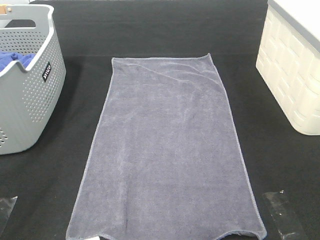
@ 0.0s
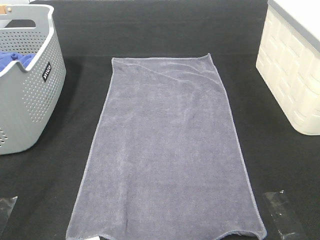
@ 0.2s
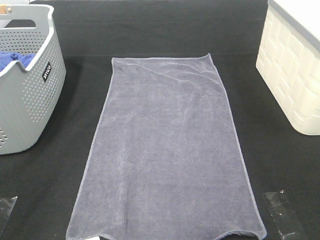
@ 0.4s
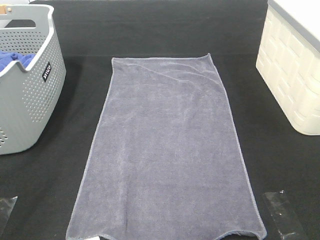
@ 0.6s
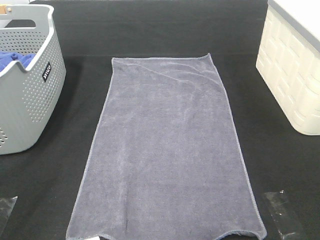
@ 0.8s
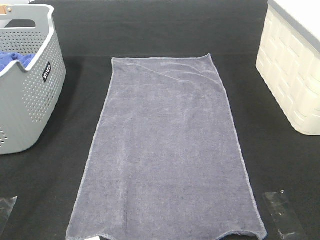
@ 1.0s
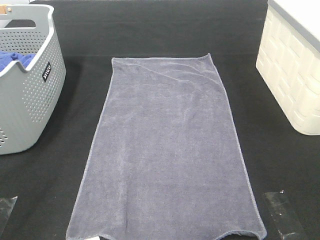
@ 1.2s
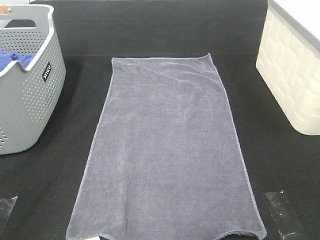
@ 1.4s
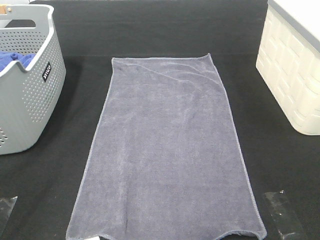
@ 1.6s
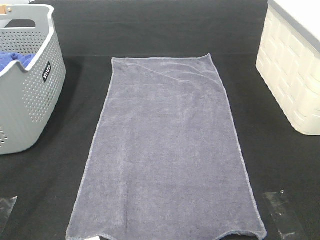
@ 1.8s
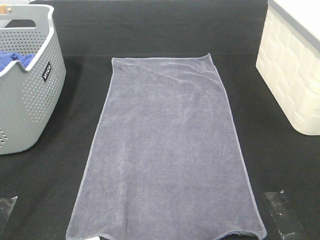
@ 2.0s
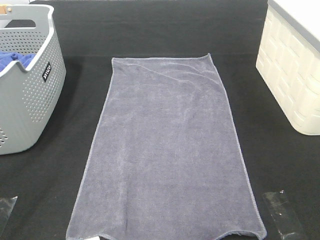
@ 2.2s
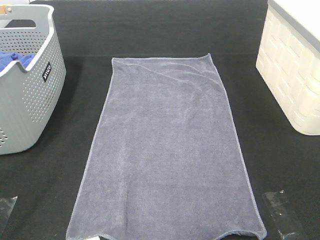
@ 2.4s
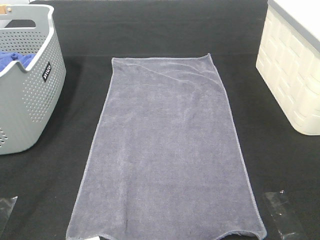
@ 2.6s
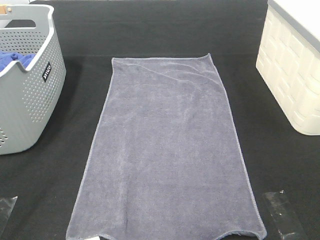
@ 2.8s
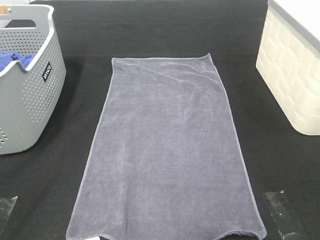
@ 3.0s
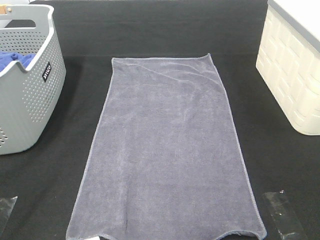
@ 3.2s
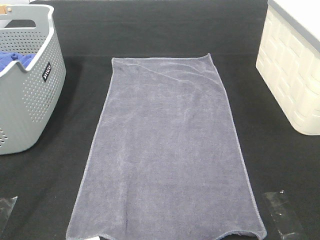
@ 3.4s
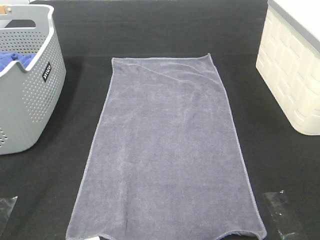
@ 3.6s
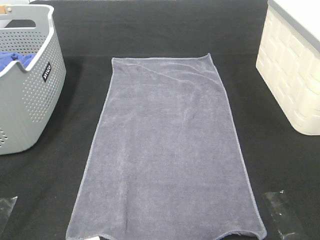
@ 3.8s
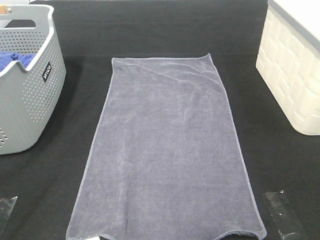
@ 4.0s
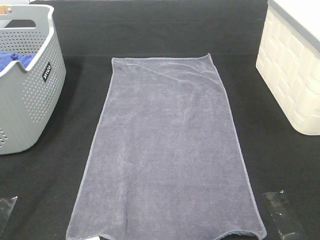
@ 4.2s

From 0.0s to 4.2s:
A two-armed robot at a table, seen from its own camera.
Task of the whole recording: Remove the towel and place it.
From 0.0s to 1.4s: Both grippers stay put.
From 2.8s to 4.2s: Both grippers stay about where they are.

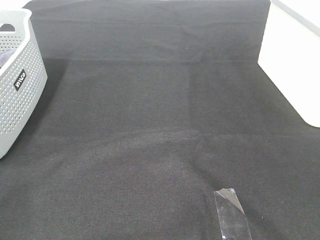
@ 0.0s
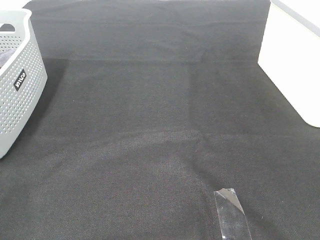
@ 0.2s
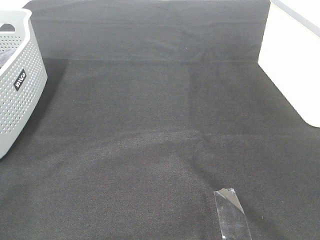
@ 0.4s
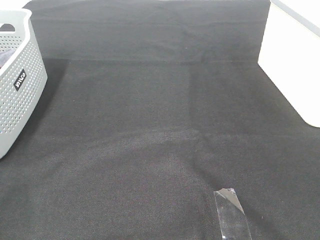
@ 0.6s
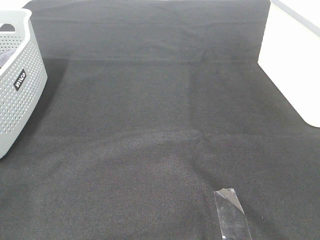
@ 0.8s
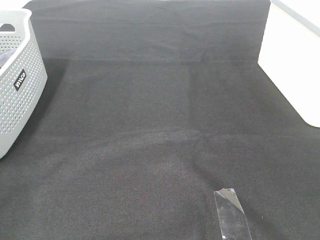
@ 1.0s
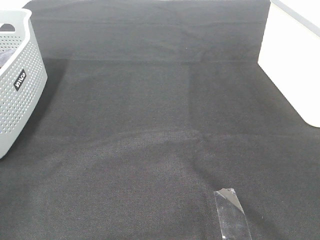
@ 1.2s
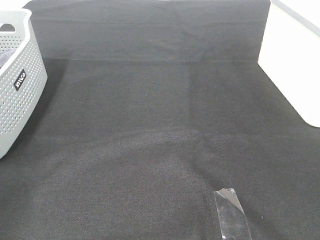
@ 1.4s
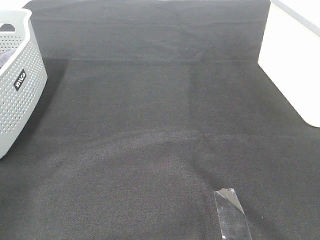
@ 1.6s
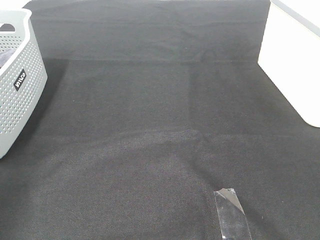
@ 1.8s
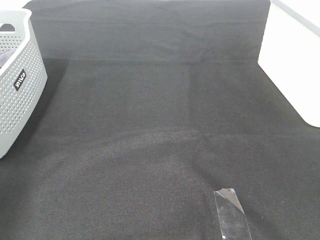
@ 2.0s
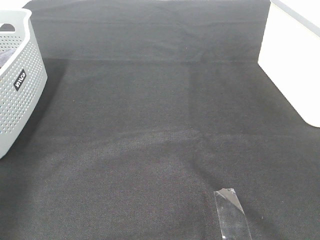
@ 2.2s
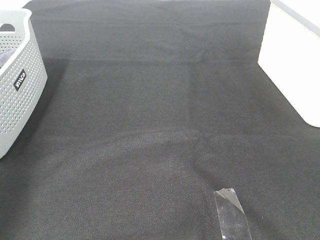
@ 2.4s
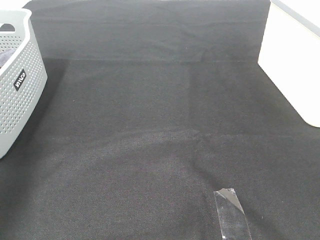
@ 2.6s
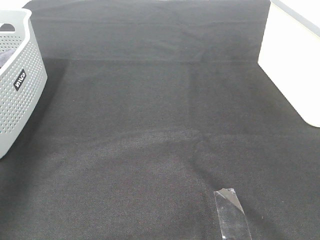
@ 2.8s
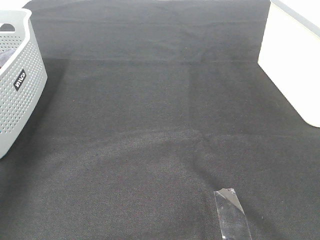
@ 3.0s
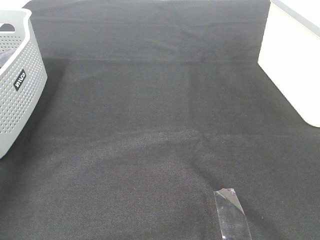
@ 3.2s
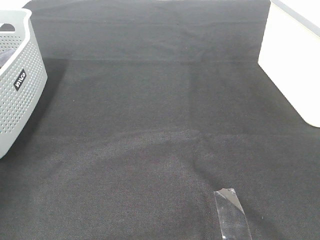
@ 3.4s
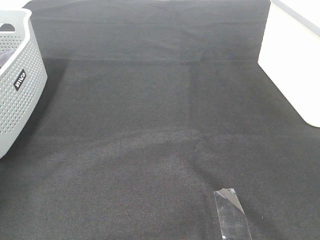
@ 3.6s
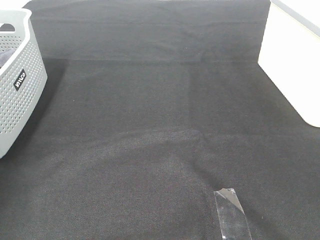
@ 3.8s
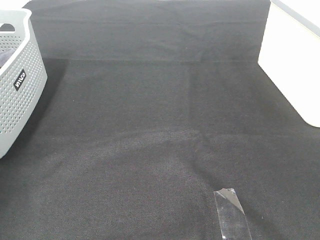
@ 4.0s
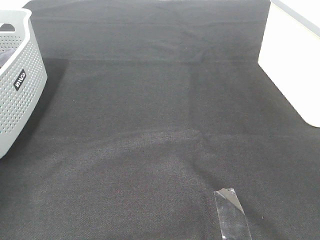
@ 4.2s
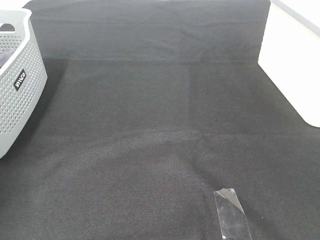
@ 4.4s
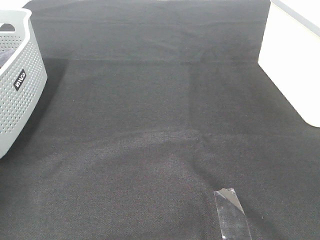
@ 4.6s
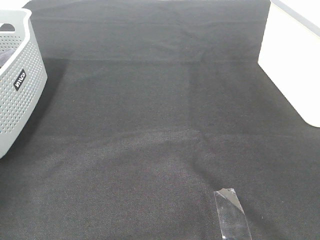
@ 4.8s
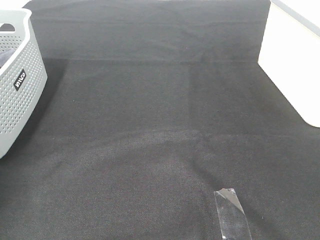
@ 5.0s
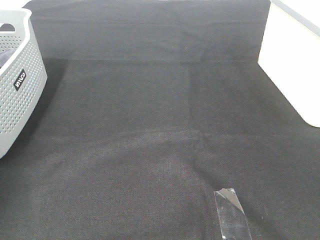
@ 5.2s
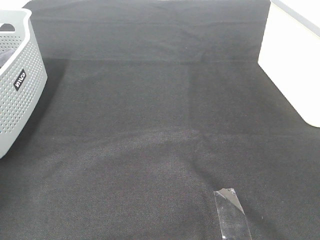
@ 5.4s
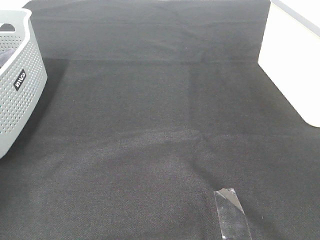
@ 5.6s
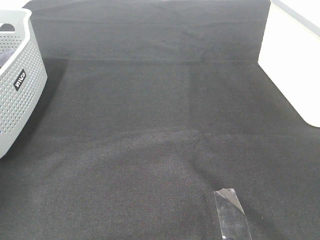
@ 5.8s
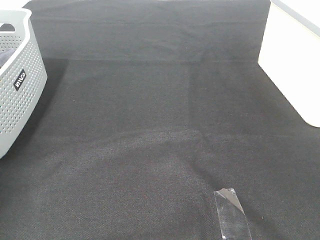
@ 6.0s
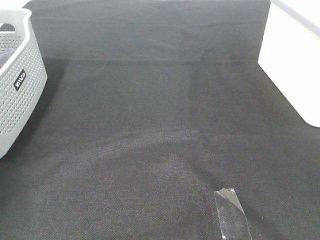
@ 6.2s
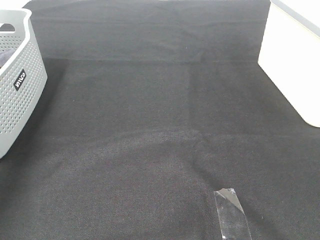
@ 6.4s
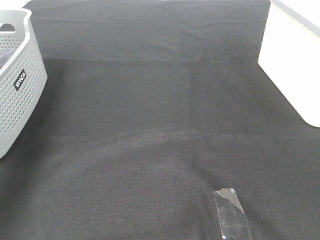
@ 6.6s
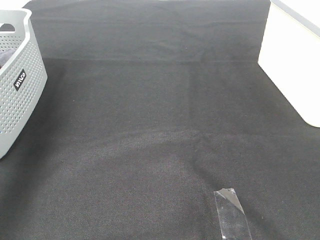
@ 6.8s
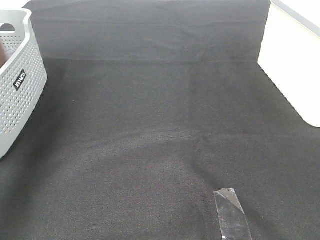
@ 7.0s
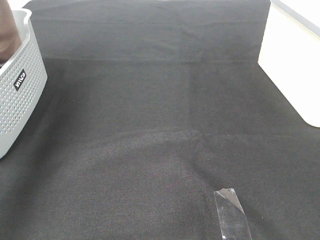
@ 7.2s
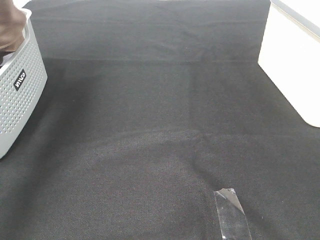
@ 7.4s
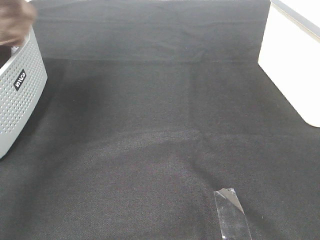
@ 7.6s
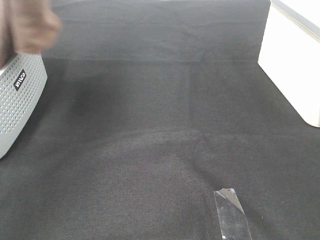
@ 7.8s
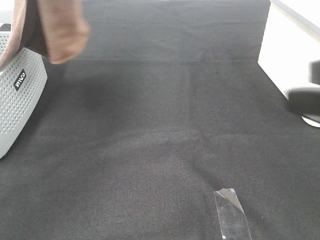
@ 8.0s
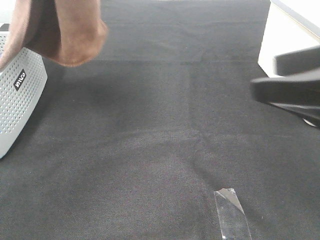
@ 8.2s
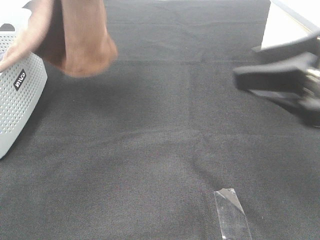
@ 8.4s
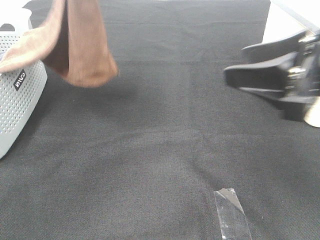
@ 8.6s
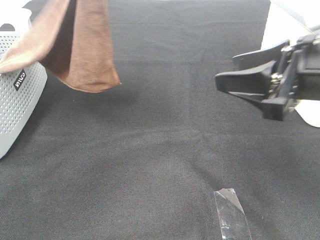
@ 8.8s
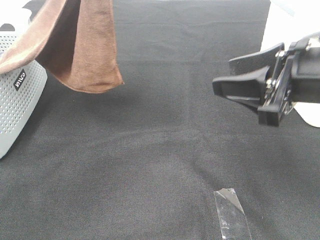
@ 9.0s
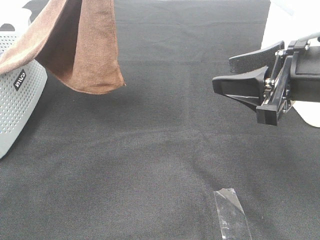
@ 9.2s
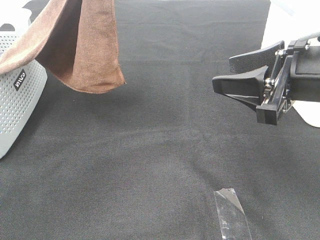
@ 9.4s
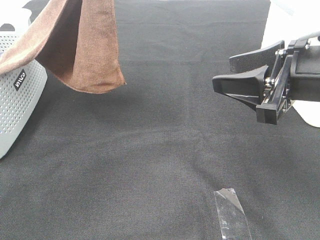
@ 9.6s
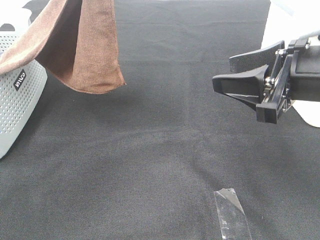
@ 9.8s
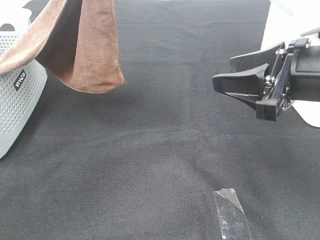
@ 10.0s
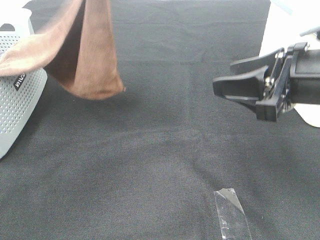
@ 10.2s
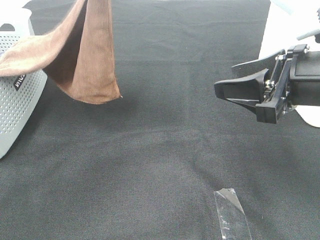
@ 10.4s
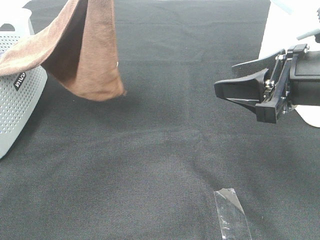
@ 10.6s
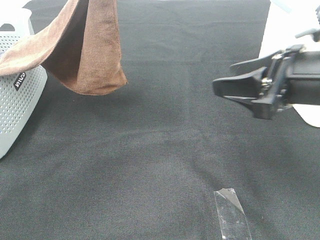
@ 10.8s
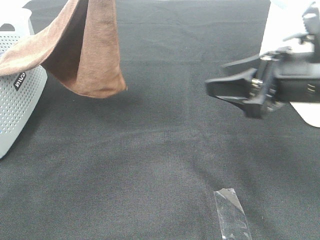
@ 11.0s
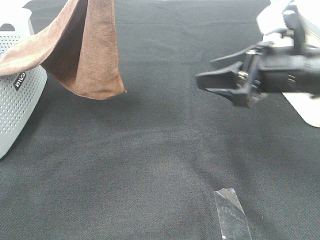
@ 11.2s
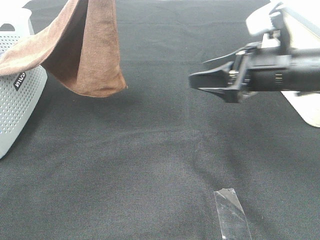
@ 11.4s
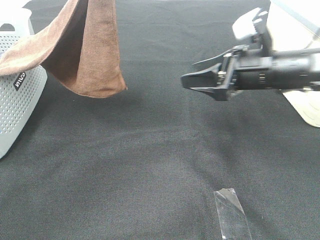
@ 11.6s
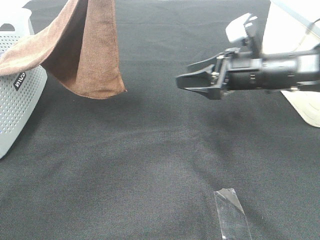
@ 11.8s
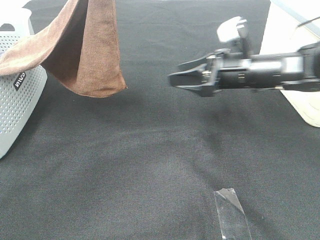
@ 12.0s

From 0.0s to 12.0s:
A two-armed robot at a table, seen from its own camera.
Task of the whole recording: Remove the towel and place it.
From 6.0s to 7.6s: The left gripper shifts roughly 30 cm upward and to the right.
From 7.6s to 9.0s: The right gripper travels forward and downward by roughly 20 cm, while the left gripper travels to the right and downward by roughly 10 cm.
From 9.0s to 10.4s: There are only small adjustments of the grippers.
From 10.4s to 12.0s: The right gripper heads forward and downward, covering roughly 20 cm.

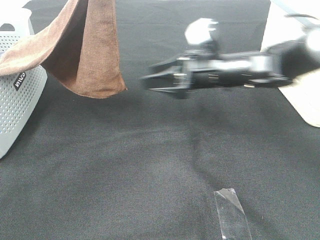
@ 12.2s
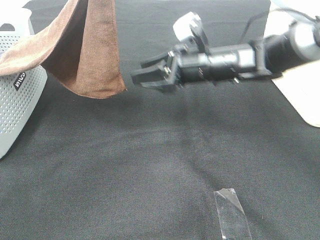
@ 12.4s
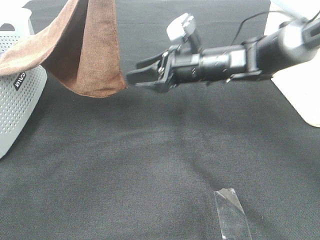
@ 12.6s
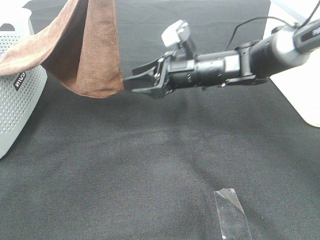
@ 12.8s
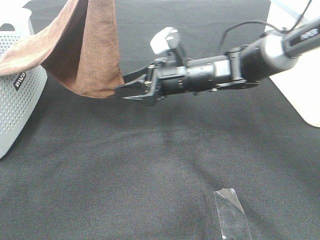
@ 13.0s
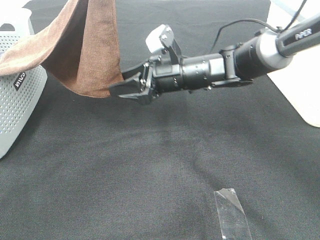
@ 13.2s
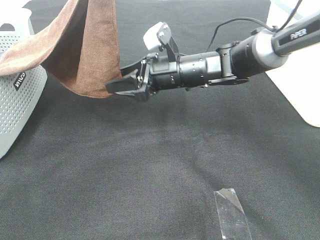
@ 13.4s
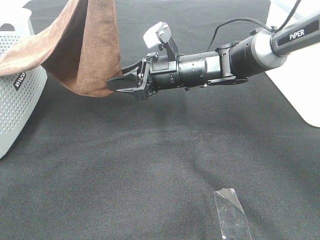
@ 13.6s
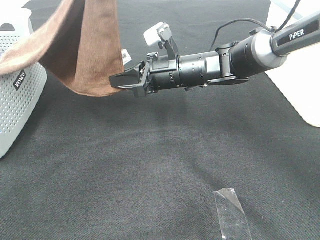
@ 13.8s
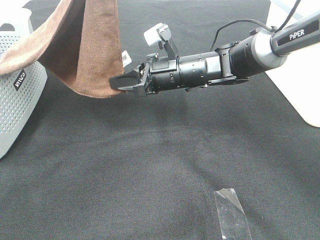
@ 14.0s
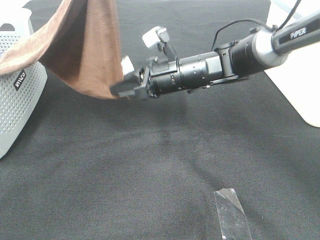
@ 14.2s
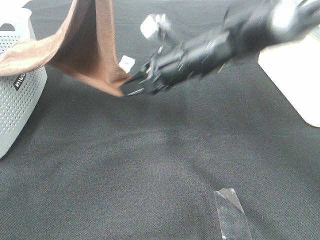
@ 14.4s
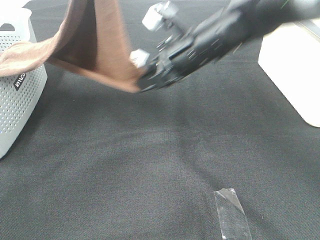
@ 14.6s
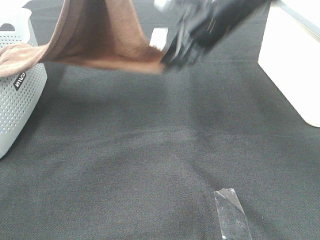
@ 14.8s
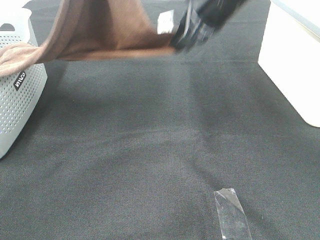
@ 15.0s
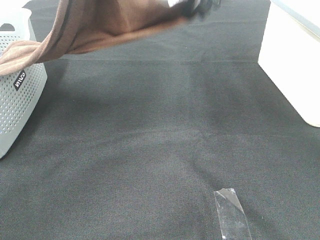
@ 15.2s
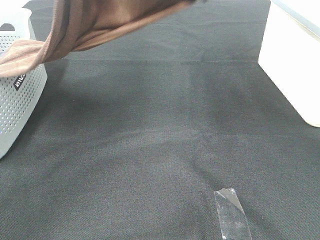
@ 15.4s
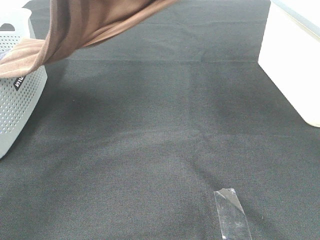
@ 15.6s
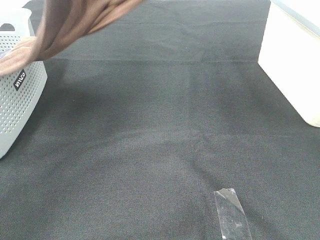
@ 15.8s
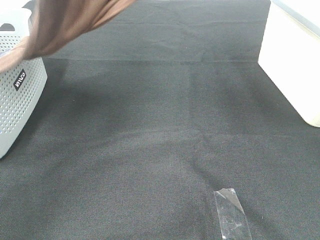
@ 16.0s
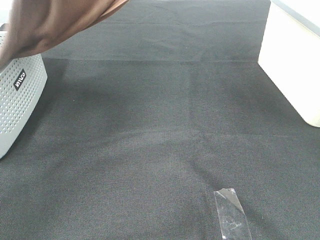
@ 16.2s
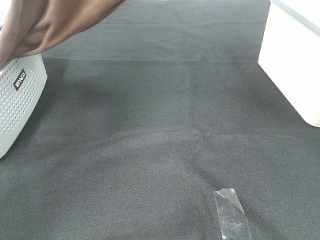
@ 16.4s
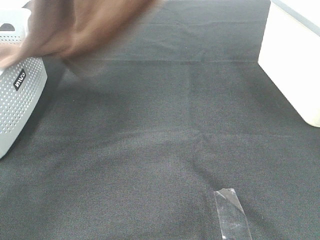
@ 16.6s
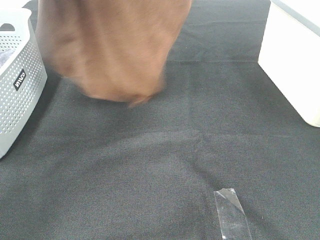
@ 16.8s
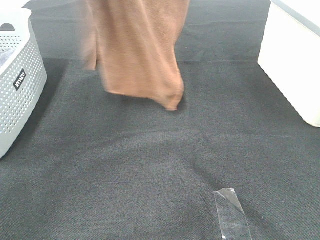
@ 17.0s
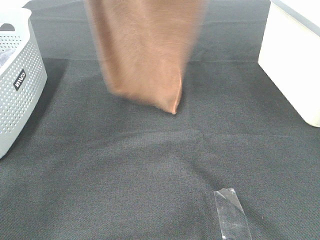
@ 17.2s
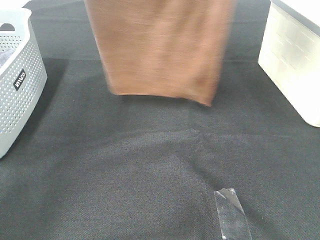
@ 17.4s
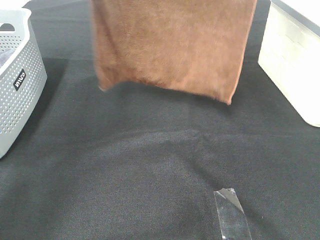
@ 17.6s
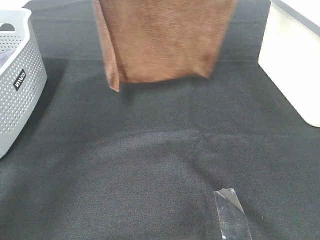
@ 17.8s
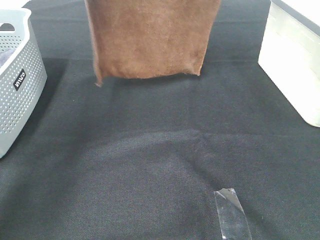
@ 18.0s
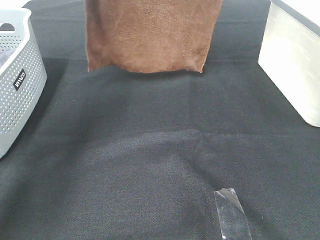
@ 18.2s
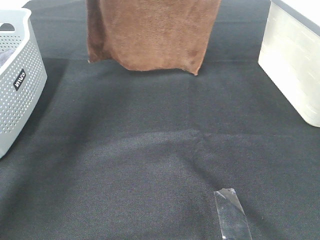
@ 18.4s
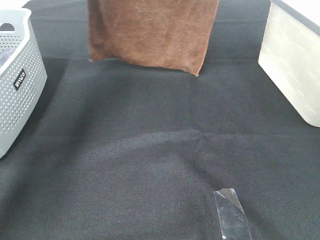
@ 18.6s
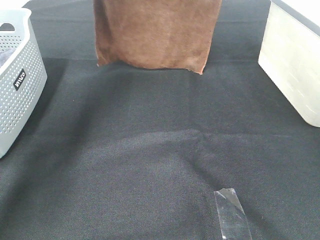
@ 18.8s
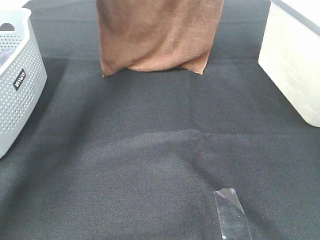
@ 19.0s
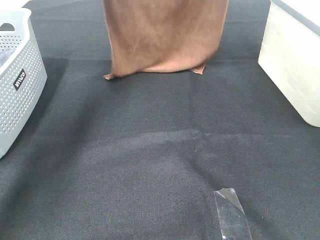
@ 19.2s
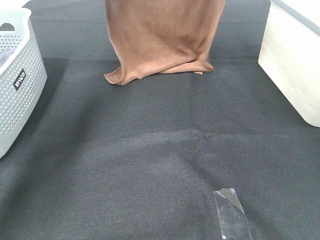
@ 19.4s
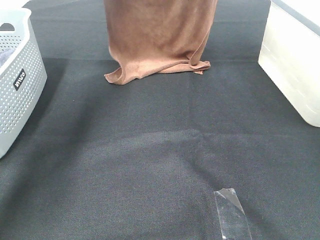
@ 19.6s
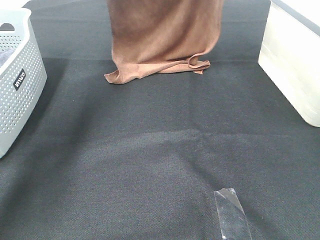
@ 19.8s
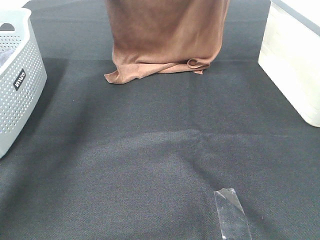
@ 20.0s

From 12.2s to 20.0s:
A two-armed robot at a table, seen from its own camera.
Task of the whole recording: Remove the towel and place it.
Step, from 12.2s to 15.2s: Right hand: grab a corner of the brown towel and straighten it.
From 12.2s to 13.8s: The right gripper is displaced to the left by roughly 5 cm, and closes up.
From 13.8s to 15.4s: The left gripper shifts roughly 5 cm to the left. Meanwhile the right gripper travels upward by about 25 cm.
From 15.4s to 16.8s: The right gripper shifts roughly 15 cm upward. Meanwhile the left gripper moves upward, approximately 10 cm.
From 16.8s to 18.4s: Both grippers move forward and downward, approximately 15 cm.
From 18.4s to 20.0s: The grippers both shift downward by roughly 10 cm.
